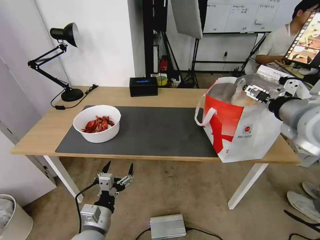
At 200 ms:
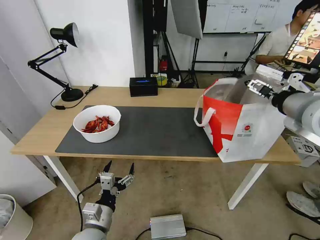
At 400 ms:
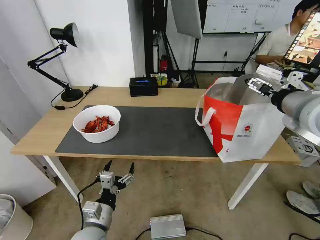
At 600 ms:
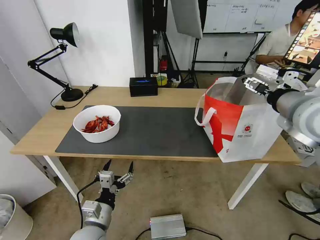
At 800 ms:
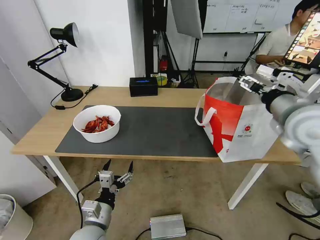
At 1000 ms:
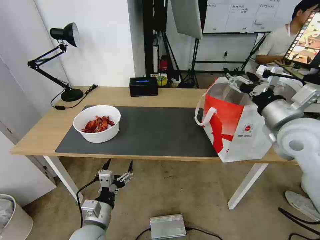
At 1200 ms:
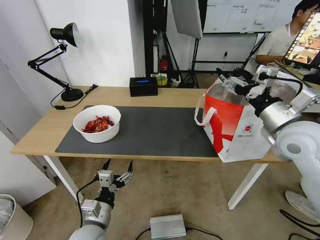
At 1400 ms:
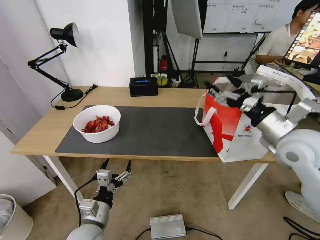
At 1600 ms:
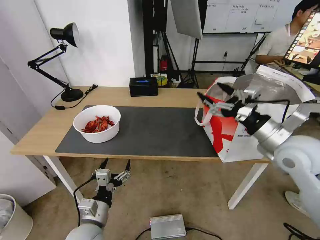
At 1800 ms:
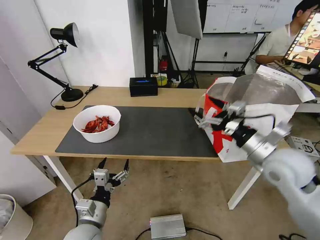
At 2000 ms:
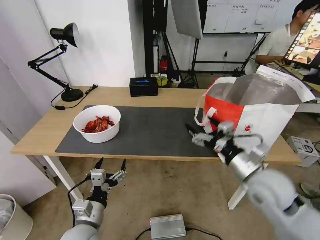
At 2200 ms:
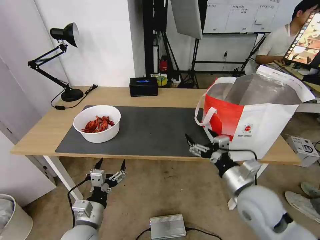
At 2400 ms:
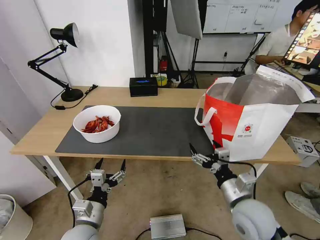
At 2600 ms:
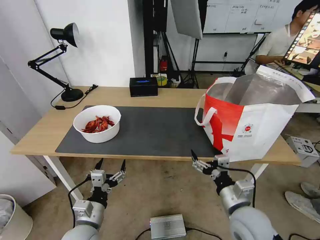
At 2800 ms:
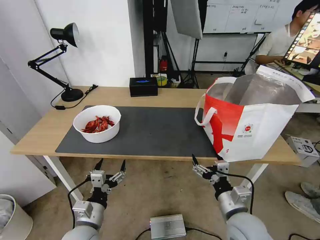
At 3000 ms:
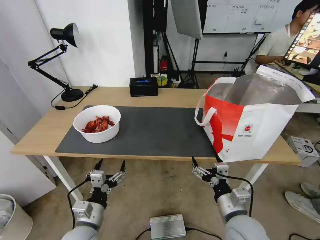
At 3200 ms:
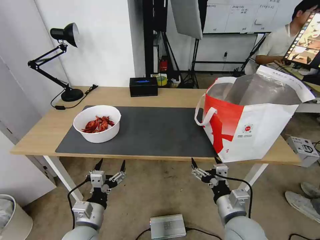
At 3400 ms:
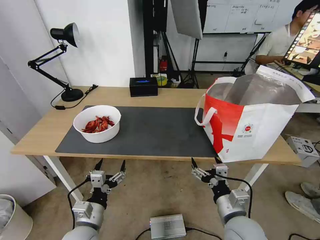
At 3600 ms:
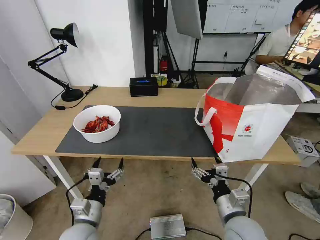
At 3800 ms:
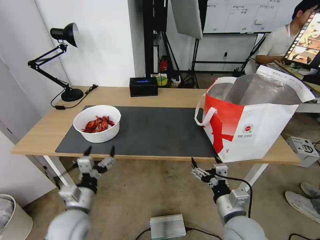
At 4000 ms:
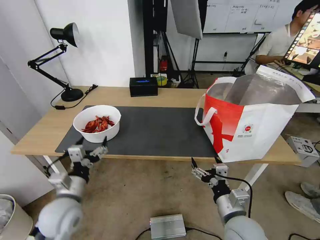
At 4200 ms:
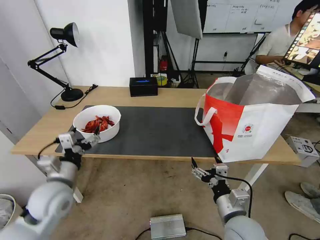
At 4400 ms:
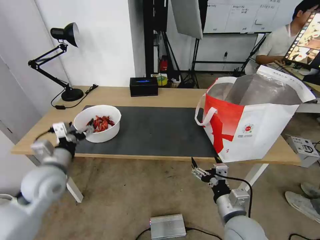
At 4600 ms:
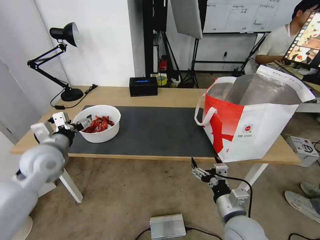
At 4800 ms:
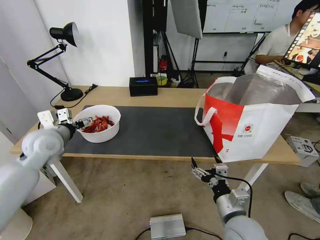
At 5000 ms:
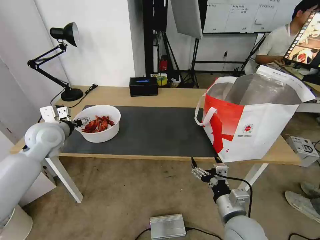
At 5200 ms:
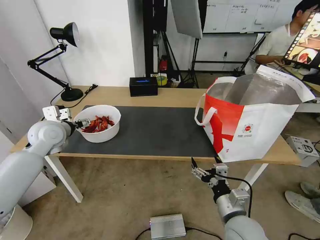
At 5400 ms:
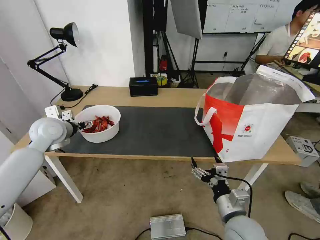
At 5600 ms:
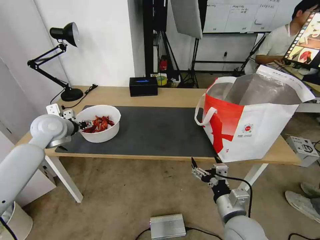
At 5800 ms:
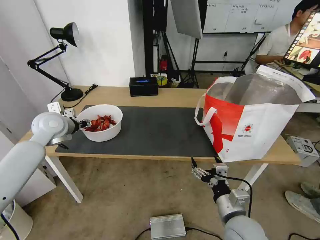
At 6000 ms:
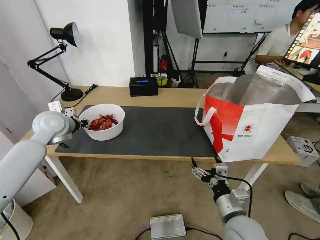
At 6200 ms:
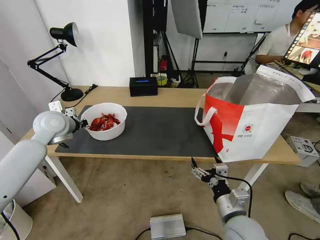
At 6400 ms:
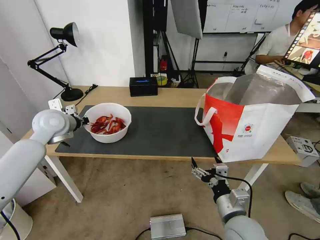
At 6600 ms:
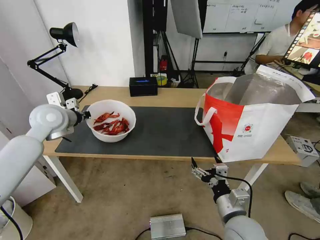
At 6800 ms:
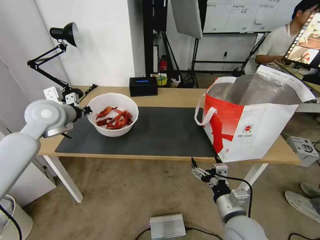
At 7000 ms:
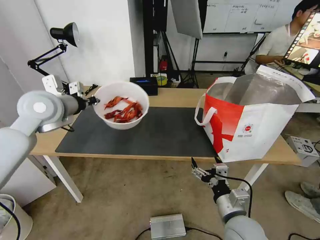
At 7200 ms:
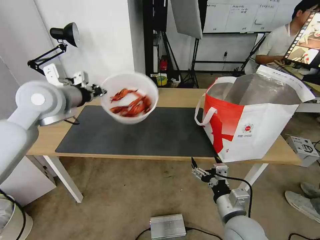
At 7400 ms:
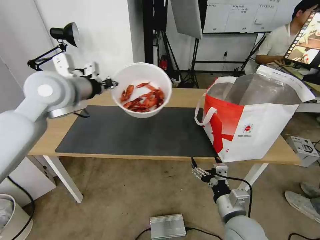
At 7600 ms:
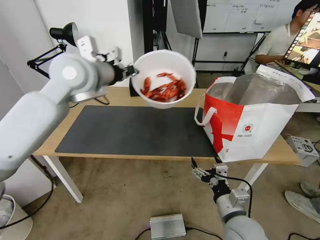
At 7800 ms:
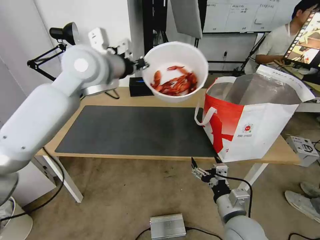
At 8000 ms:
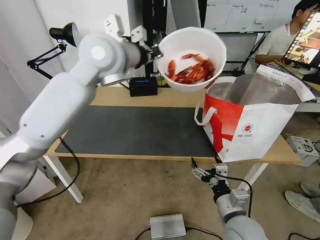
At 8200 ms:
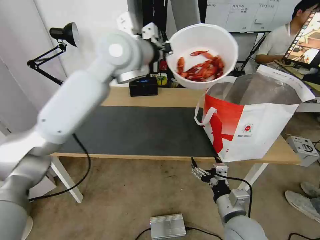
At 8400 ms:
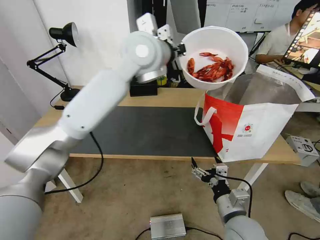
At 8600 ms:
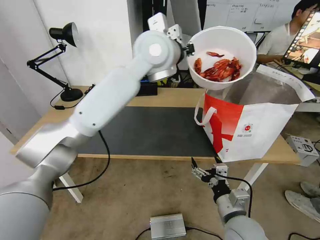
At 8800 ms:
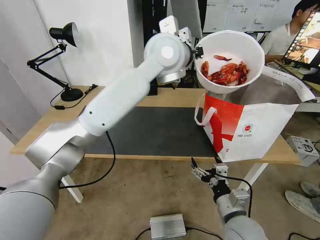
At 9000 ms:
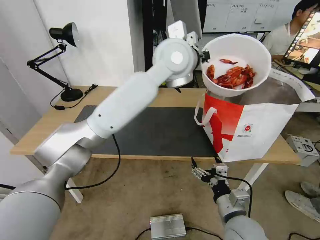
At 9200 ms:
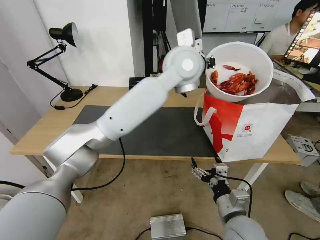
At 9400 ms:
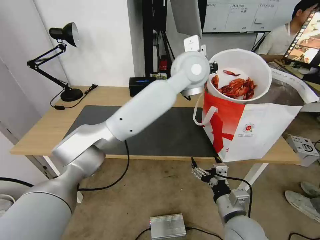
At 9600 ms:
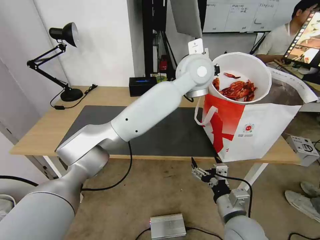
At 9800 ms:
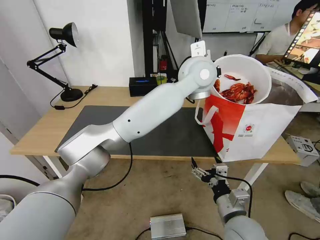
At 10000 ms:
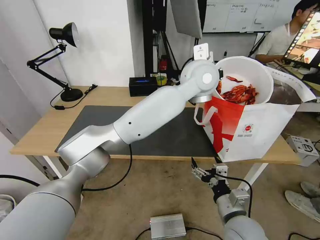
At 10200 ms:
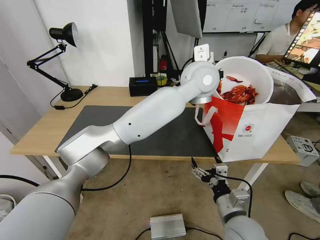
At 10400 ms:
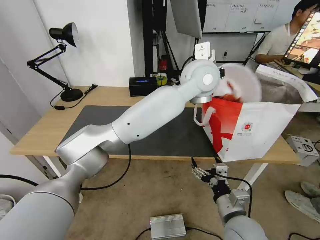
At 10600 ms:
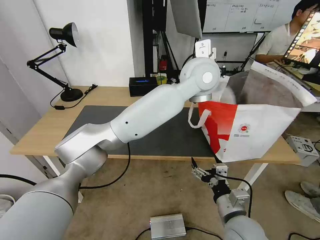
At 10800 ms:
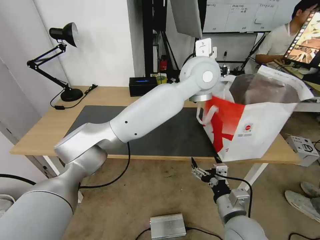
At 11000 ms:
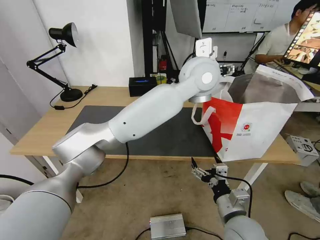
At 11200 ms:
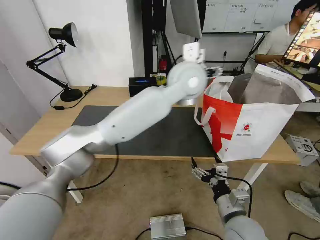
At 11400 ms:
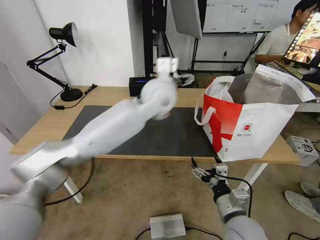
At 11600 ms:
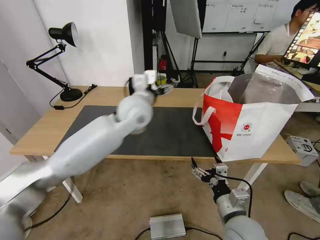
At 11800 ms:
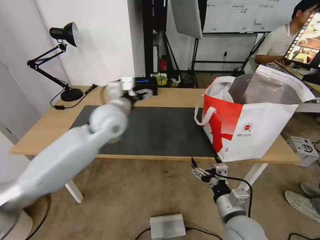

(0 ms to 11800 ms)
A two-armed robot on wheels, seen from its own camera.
Task of the whole recording: Pick up the trash from the table and place it into the takeout bag.
0 ms - 1400 ms: The right gripper goes approximately 5 cm downward.
1400 ms - 3000 ms: The right gripper shifts about 25 cm downward, backward and to the left.
3000 ms - 4400 ms: The left gripper shifts some 20 cm upward, forward and to the left.
4400 ms - 6000 ms: The left gripper heads forward and upward, covering roughly 15 cm, and closes.
6000 ms - 7400 ms: The left gripper travels upward and to the right by some 15 cm.
7400 ms - 8800 ms: The left gripper heads to the right, covering about 25 cm.
8800 ms - 10400 ms: The left gripper goes roughly 10 cm to the right and downward.
10400 ms - 11800 ms: The left gripper goes some 30 cm to the left and downward, and opens up.

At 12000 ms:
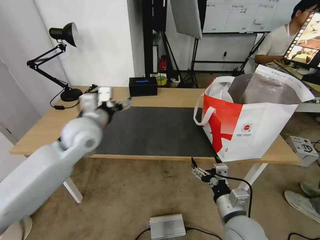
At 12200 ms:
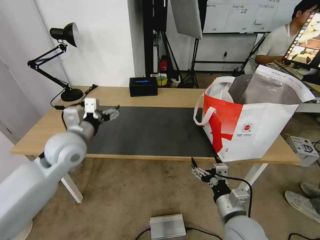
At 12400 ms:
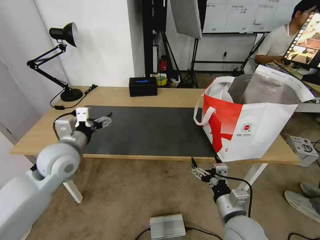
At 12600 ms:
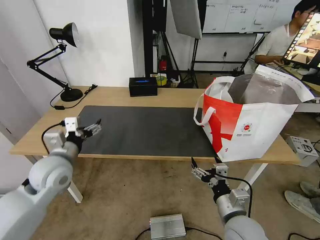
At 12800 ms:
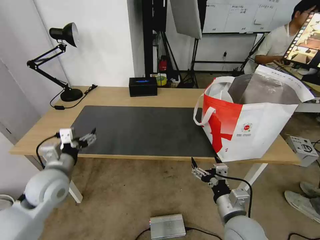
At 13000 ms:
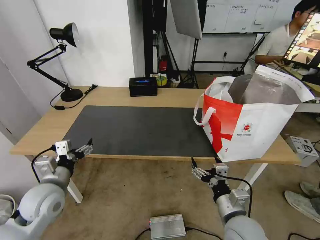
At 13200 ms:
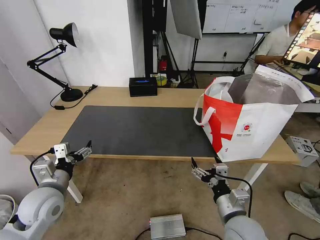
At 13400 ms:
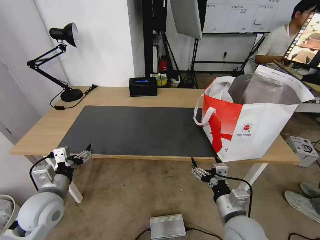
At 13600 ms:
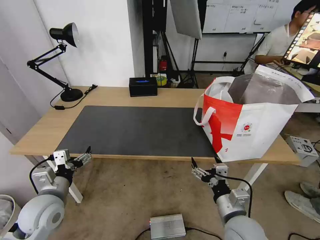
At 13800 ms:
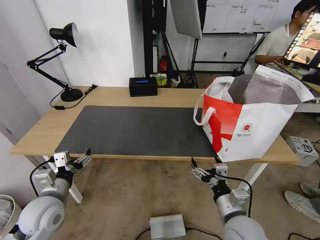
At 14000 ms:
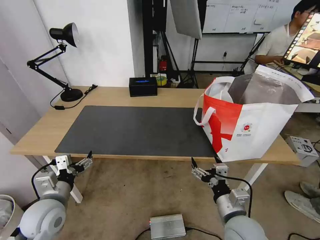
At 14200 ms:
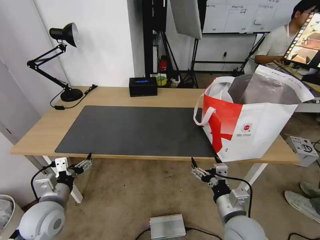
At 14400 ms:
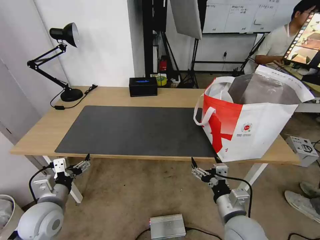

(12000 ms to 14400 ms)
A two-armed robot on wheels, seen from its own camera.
Task of the whole recording: Pick up the trash from the table and place it into the takeout bag.
12000 ms - 13200 ms: The left gripper travels downward, backward and to the left by some 20 cm.
13200 ms - 14400 ms: The grippers stay close to where they were, moving slightly.

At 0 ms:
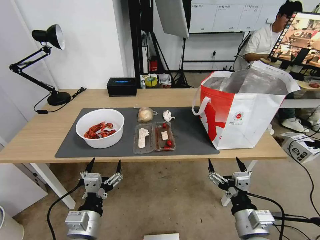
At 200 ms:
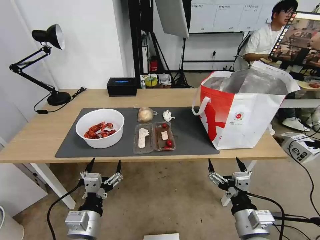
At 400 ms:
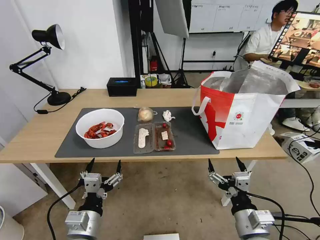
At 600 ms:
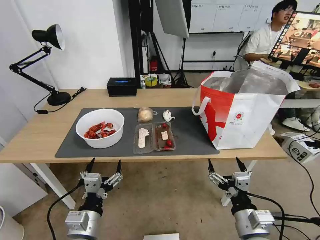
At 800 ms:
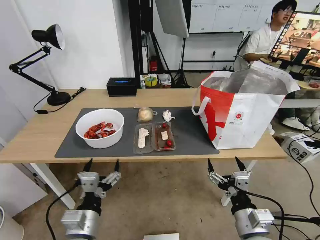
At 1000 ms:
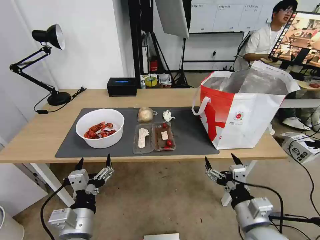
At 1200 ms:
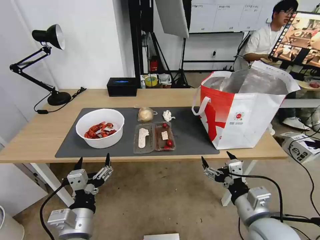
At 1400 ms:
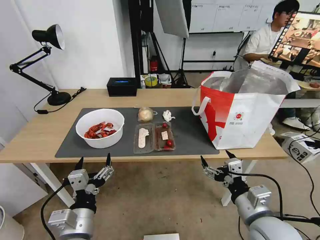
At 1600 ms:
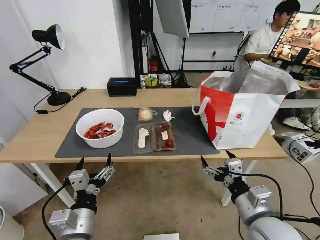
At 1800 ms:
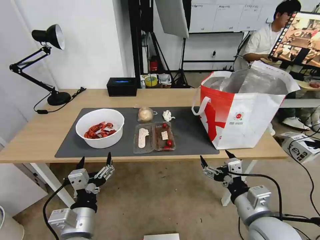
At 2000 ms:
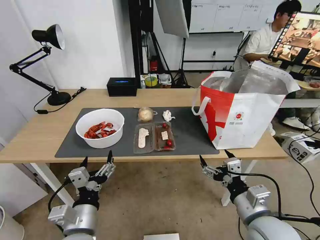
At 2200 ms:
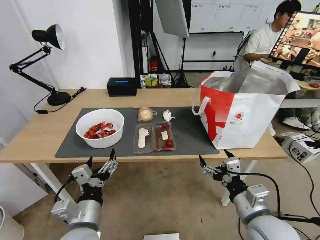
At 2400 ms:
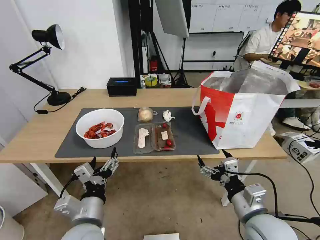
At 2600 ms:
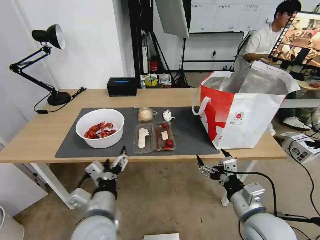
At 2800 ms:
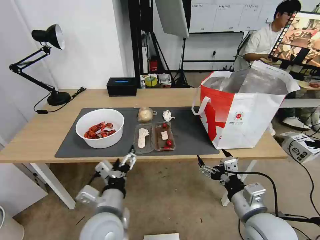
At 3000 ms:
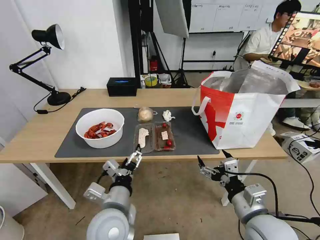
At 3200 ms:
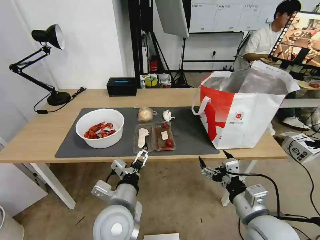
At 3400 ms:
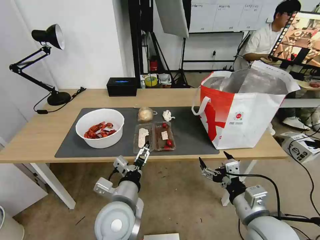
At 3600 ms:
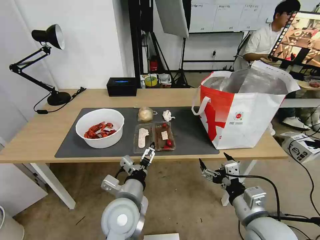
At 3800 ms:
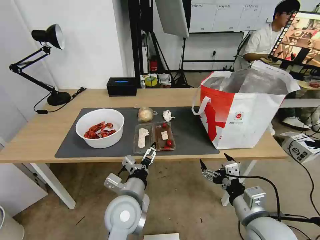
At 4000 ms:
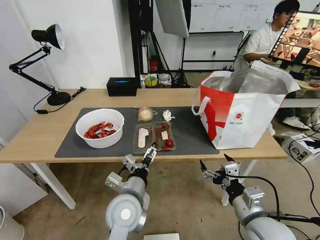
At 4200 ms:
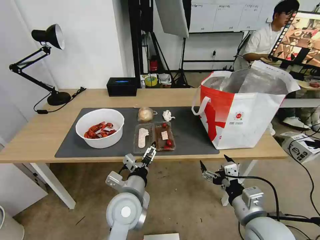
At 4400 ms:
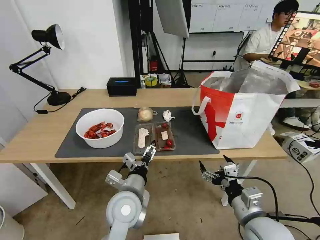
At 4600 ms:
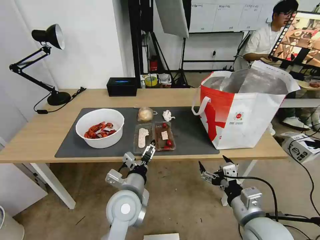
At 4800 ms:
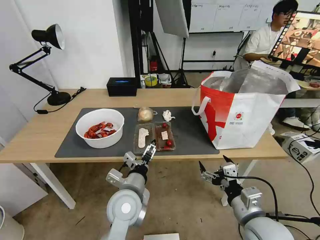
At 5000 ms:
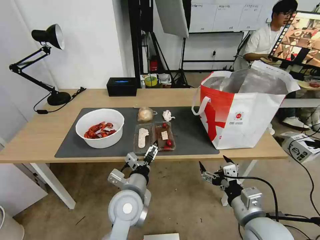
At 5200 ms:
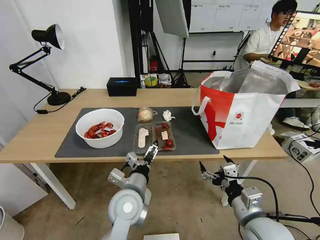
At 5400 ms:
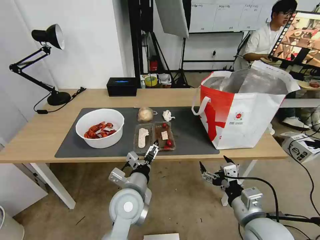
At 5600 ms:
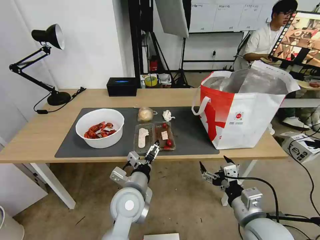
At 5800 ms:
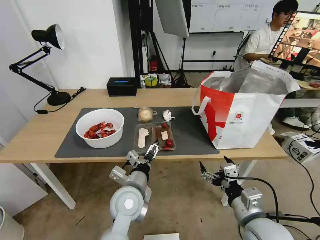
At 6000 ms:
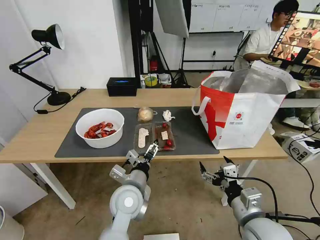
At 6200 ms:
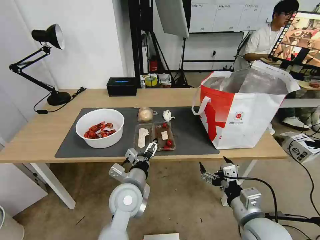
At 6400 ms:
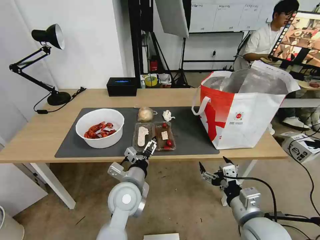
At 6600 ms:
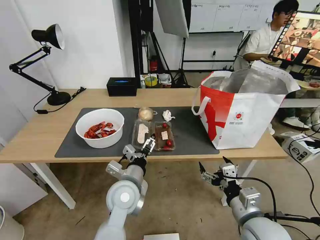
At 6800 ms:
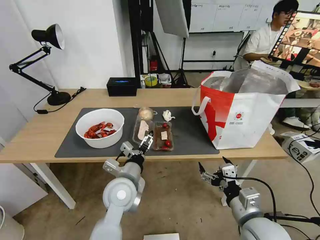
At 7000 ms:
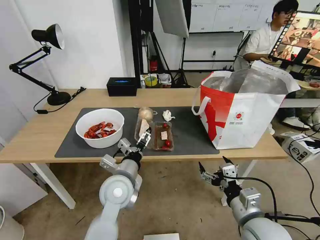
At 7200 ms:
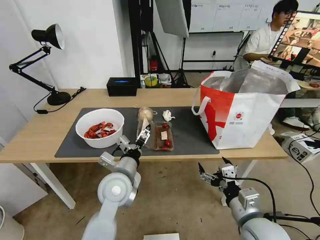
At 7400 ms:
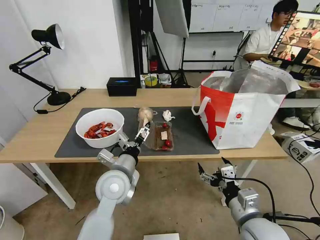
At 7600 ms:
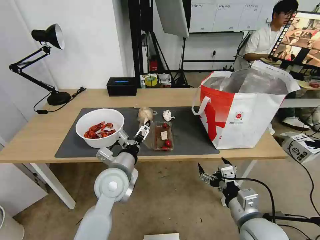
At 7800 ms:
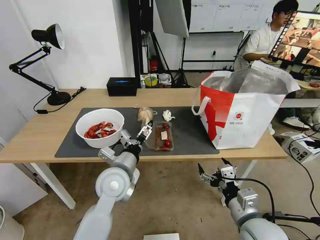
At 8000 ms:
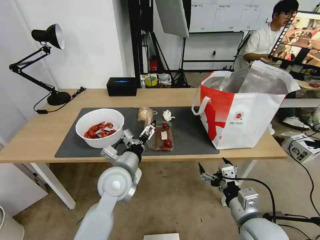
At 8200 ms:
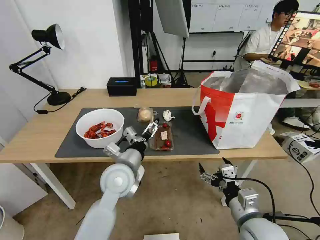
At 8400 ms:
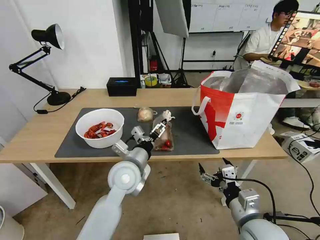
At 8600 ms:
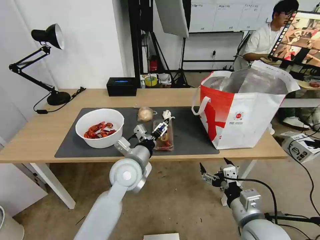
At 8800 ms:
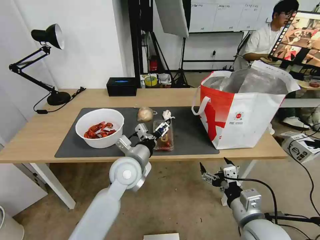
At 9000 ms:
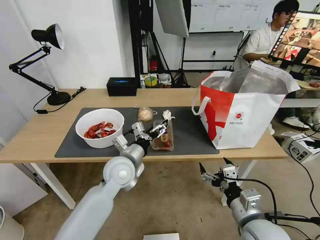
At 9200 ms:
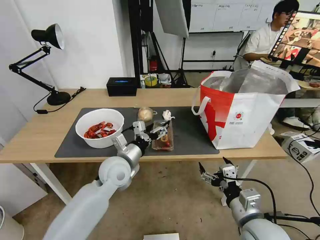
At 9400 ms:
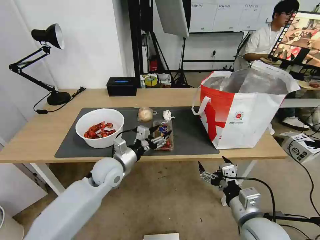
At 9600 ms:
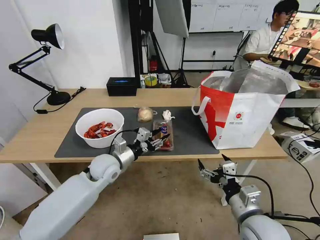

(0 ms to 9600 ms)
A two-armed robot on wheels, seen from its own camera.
Task of the whole recording: Pick up the trash from the table and place it into the takeout bag.
1600 ms - 3200 ms: The left gripper heads to the right and forward, covering approximately 10 cm.
3200 ms - 4800 ms: The left gripper goes about 5 cm forward.
4800 ms - 6400 ms: The grippers move only a little.
6400 ms - 8000 ms: The left gripper shifts by roughly 5 cm.
8000 ms - 9600 ms: The left gripper moves forward and to the left, roughly 10 cm, and closes its fingers.
